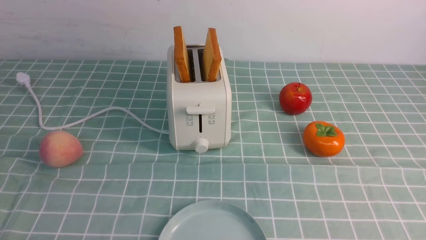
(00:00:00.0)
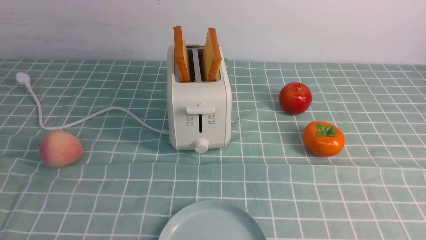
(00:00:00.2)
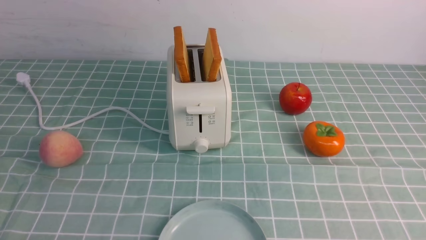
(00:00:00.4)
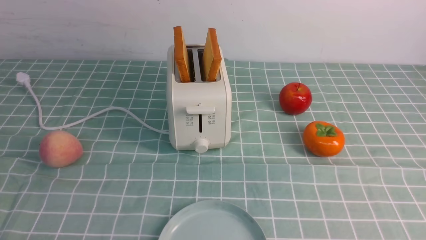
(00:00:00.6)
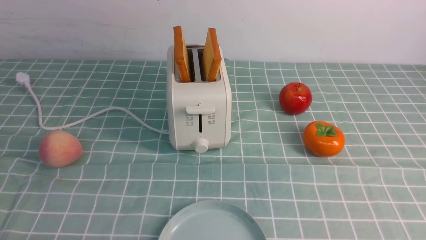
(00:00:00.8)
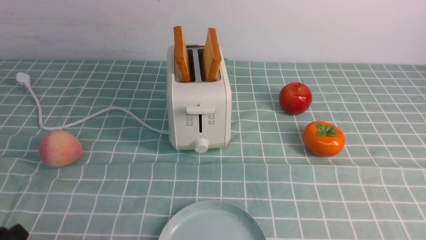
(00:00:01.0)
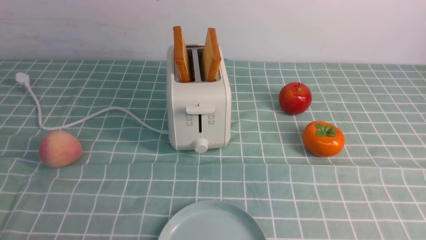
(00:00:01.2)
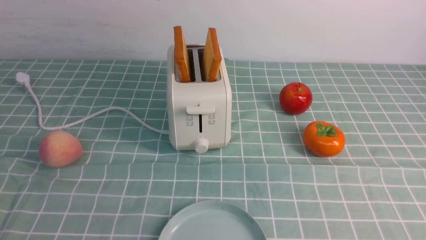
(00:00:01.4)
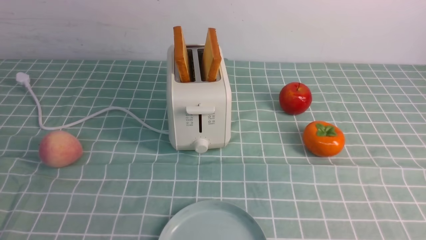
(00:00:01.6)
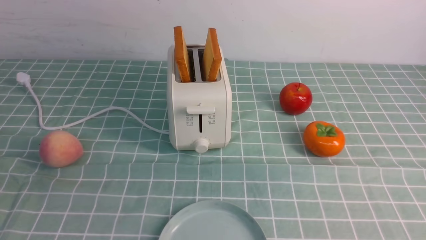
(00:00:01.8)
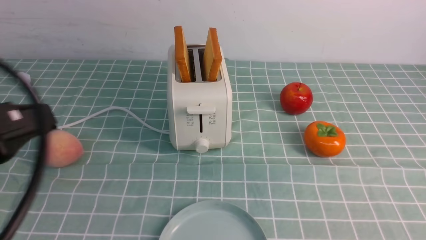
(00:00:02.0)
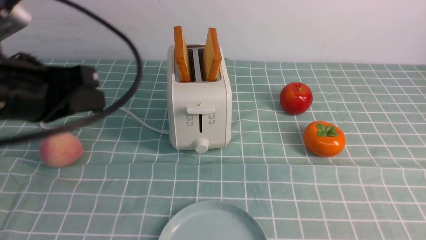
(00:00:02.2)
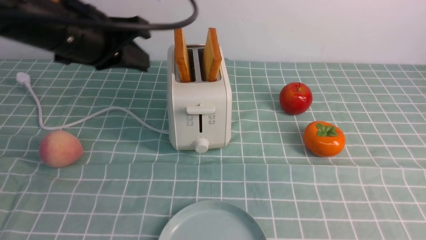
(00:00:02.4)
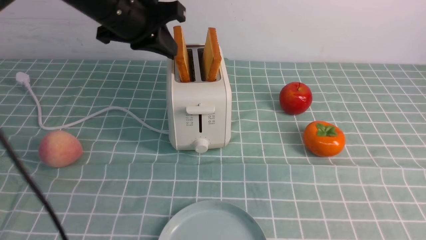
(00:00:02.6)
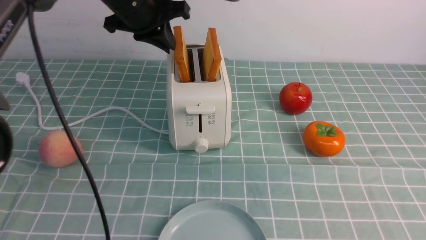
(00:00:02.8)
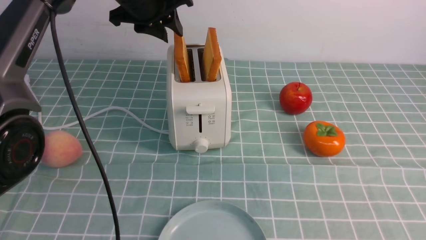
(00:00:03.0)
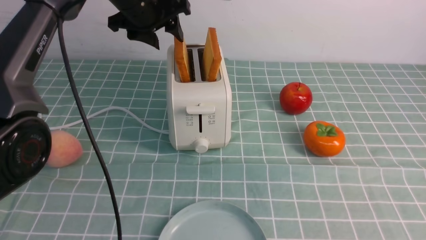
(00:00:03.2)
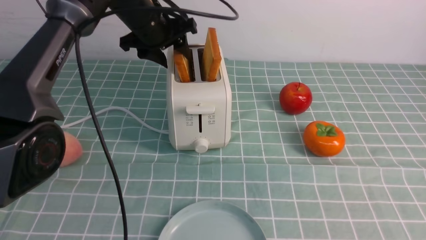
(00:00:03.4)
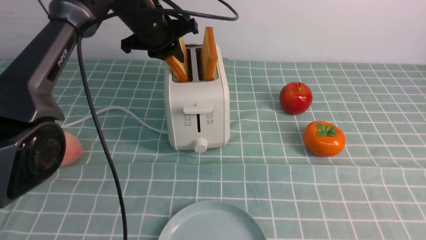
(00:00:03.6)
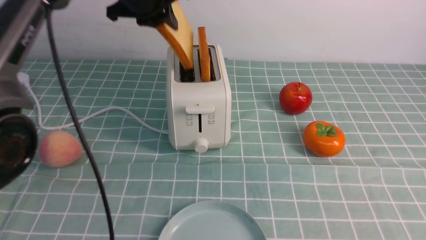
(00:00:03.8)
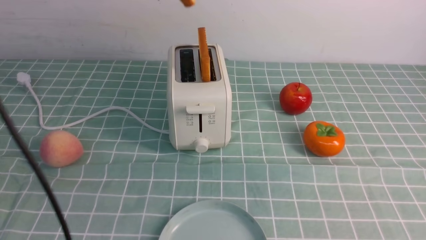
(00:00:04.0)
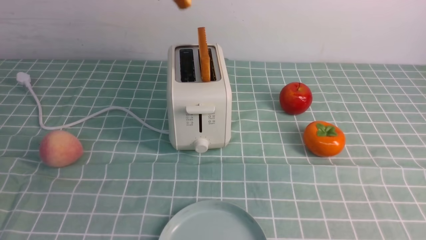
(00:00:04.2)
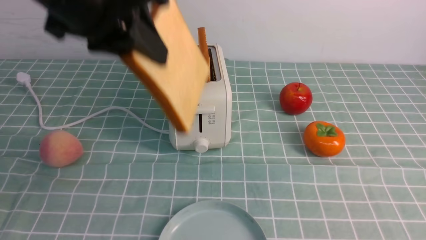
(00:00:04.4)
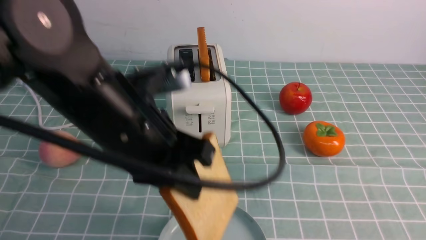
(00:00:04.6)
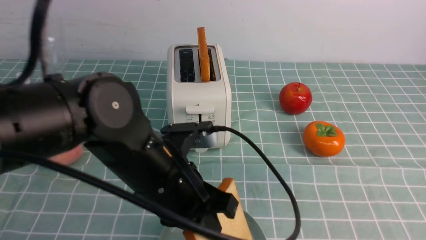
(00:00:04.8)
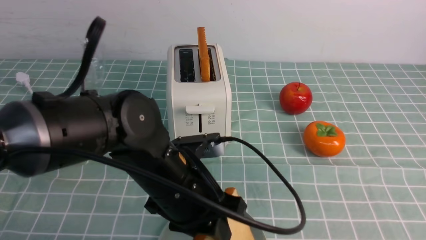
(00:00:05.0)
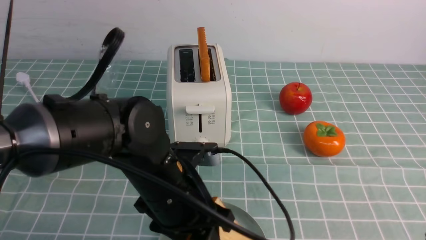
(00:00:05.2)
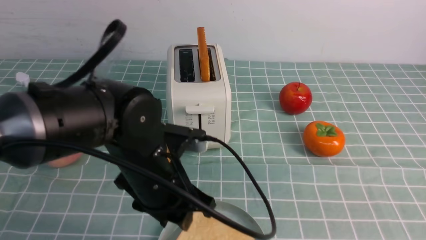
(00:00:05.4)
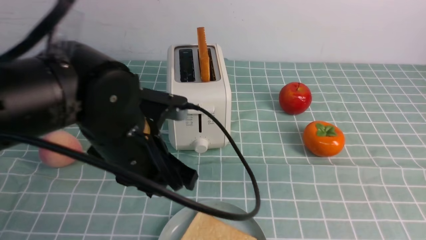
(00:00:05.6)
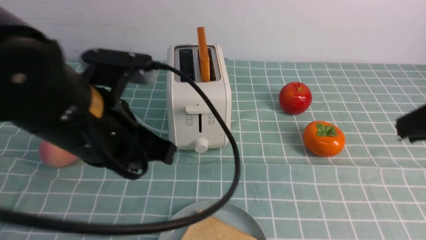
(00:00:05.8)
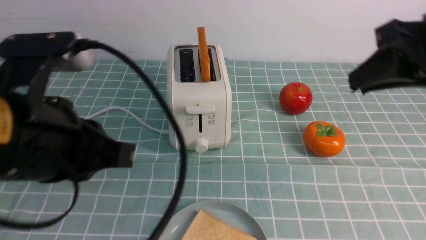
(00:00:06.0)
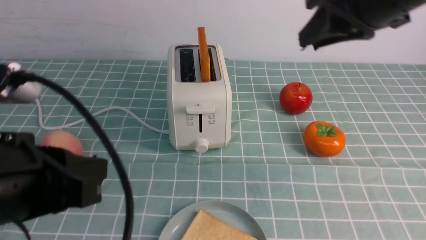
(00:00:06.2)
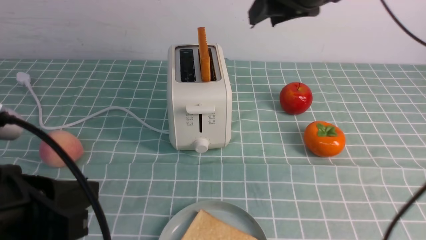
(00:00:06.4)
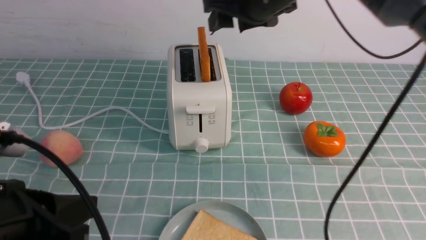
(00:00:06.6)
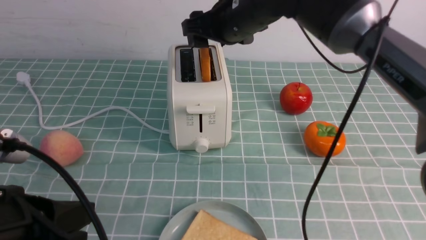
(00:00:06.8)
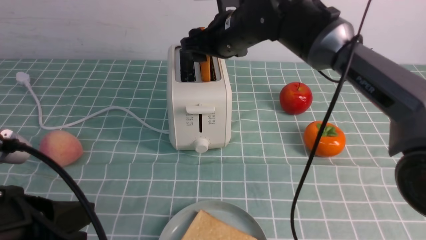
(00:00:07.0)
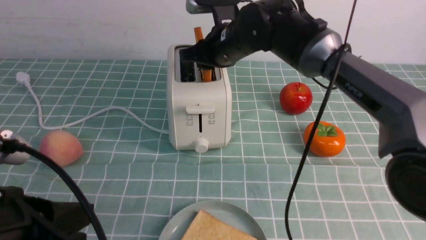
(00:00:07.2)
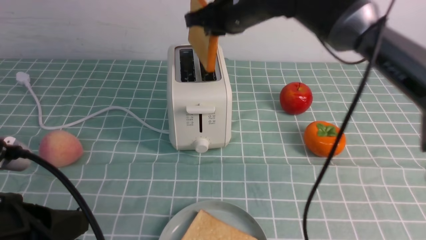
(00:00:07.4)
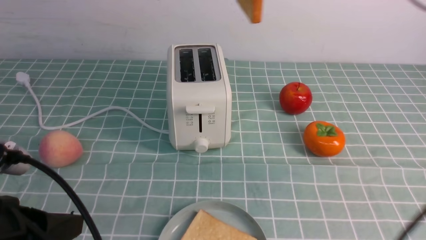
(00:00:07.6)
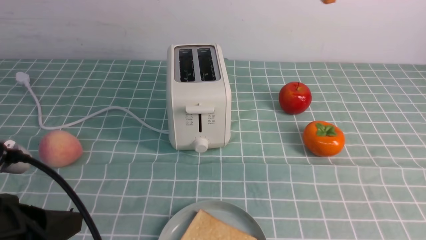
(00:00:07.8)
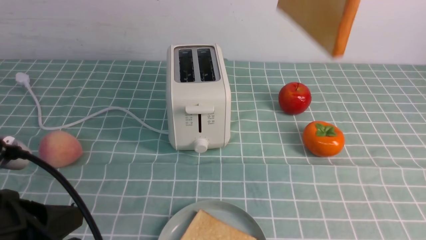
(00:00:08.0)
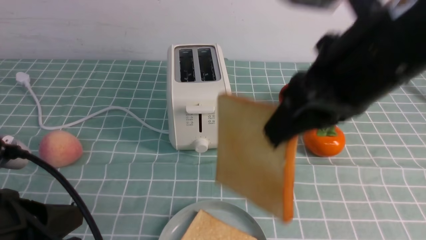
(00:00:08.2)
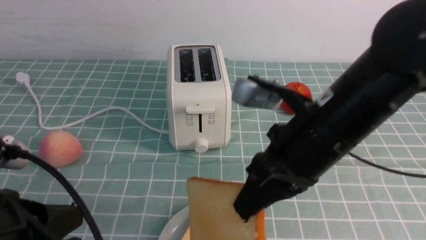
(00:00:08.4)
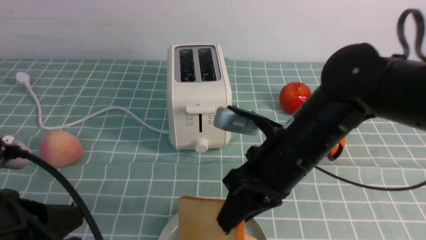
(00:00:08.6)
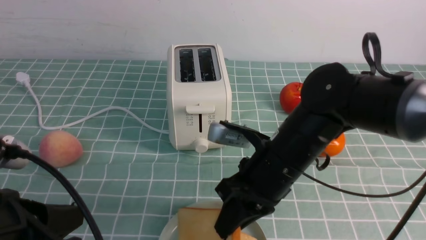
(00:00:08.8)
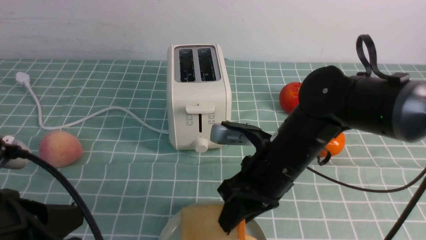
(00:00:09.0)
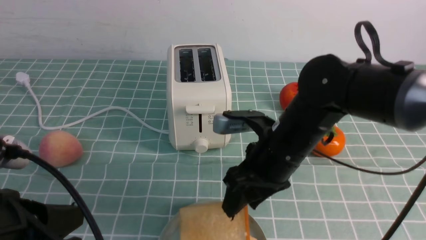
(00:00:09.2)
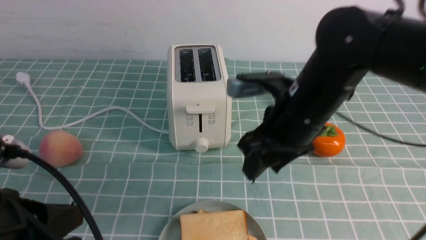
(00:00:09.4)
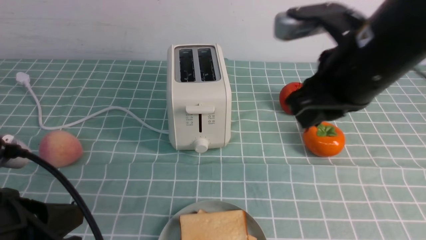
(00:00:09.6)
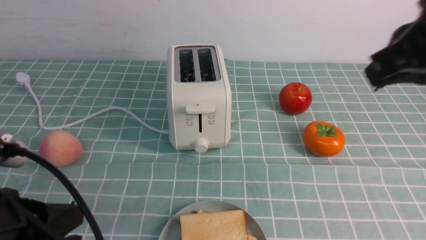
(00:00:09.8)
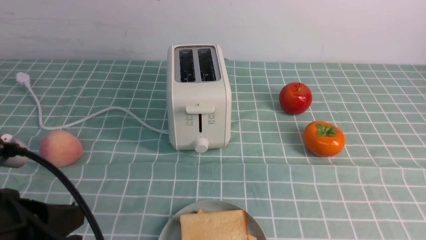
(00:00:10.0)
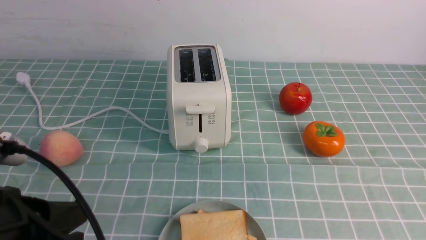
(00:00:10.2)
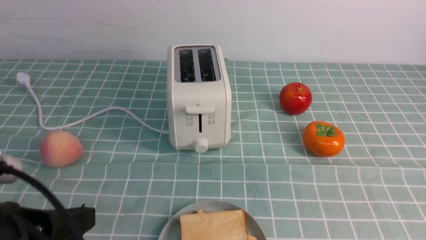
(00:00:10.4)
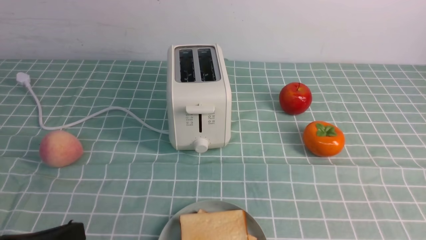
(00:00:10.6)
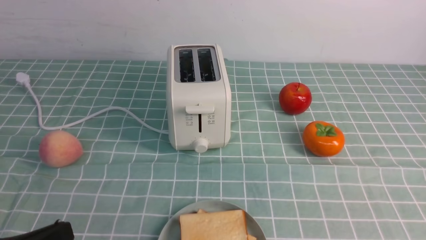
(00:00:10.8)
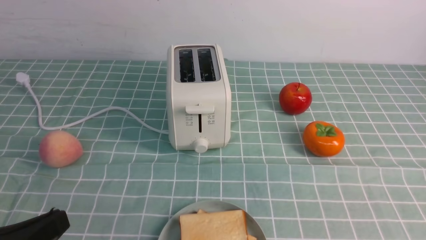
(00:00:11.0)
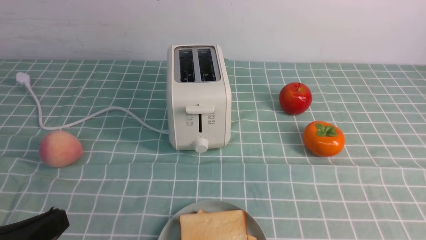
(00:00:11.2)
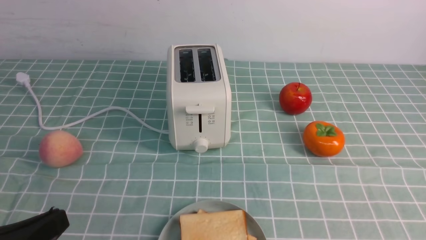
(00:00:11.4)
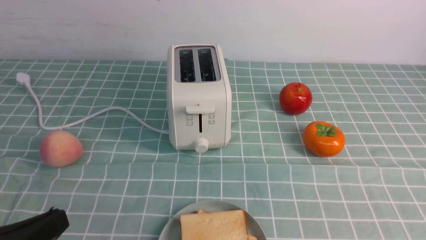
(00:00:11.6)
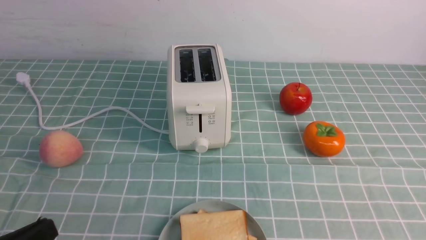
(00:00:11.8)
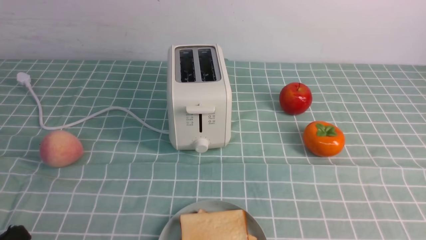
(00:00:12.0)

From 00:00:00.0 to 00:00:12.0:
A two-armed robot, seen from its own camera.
Task of the whole recording: take toasted bread from bread machine on blue coffee table place on plate.
Step, from 00:00:00.0 to 00:00:04.2: use the left arm to take out a slice of bread.
Step, from 00:00:04.4 to 00:00:06.2: use the left arm to put a slice of bread into the empty plate.
Step, from 00:00:06.4 to 00:00:07.8: use the right arm to take out a slice of bread.
Step, from 00:00:08.0 to 00:00:09.6: use the right arm to put a slice of bread into the plate.
From 00:00:01.6 to 00:00:03.0: The left gripper moves forward, roughly 40 cm, and opens its fingers, while the right gripper shifts approximately 5 cm upward, and closes.
From 00:00:03.0 to 00:00:04.4: The left gripper shifts about 20 cm backward, and closes its fingers.
From 00:00:04.4 to 00:00:06.0: The left gripper travels backward and downward by roughly 15 cm, and opens, then closes once more. Meanwhile the right gripper moves forward and upward, approximately 25 cm.
From 00:00:06.0 to 00:00:07.6: The left gripper heads downward and backward, covering about 10 cm; the right gripper travels to the left, forward and upward by approximately 15 cm, and opens, then closes once more.
From 00:00:07.6 to 00:00:09.0: The right gripper moves downward, approximately 25 cm.
From 00:00:09.0 to 00:00:10.4: The right gripper shifts approximately 30 cm backward, to the right and upward, and closes.
From 00:00:10.4 to 00:00:12.0: The left gripper heads downward, covering roughly 5 cm.

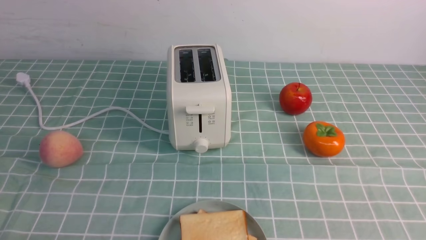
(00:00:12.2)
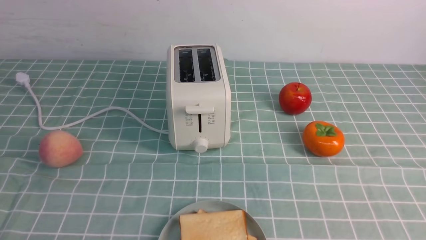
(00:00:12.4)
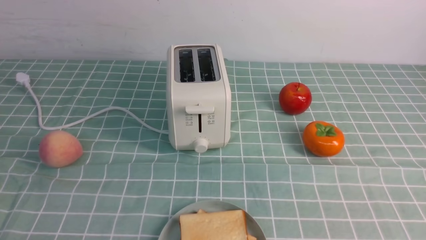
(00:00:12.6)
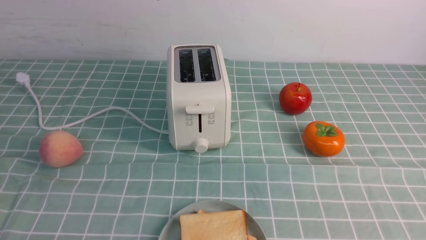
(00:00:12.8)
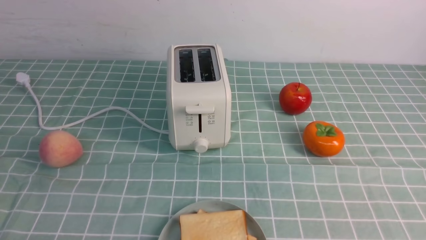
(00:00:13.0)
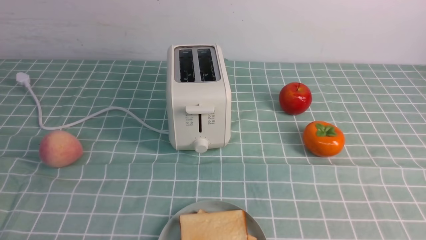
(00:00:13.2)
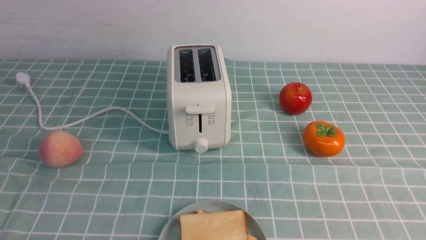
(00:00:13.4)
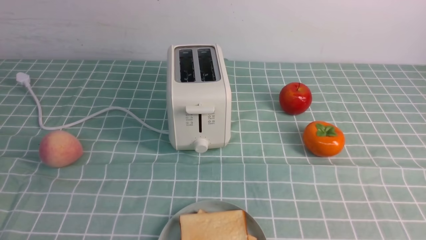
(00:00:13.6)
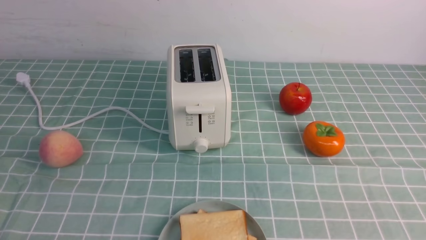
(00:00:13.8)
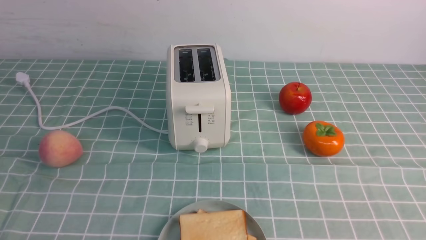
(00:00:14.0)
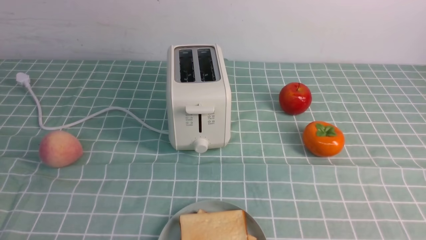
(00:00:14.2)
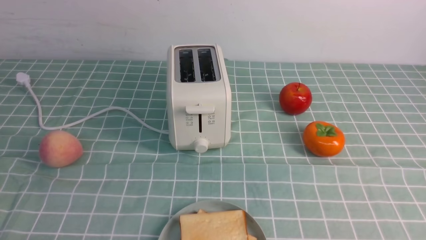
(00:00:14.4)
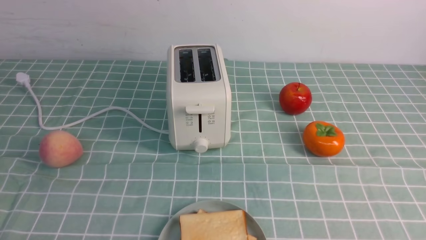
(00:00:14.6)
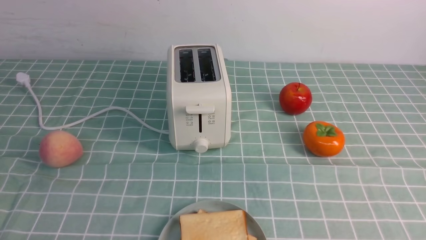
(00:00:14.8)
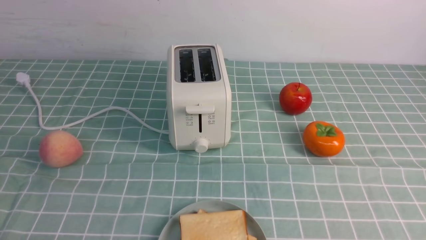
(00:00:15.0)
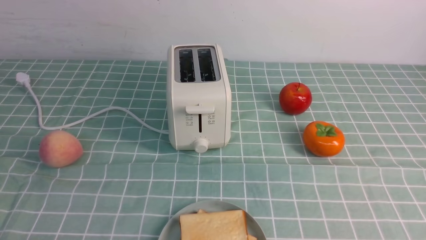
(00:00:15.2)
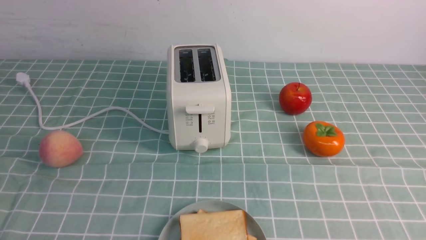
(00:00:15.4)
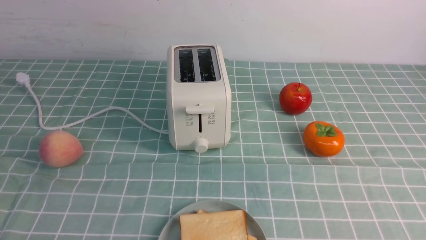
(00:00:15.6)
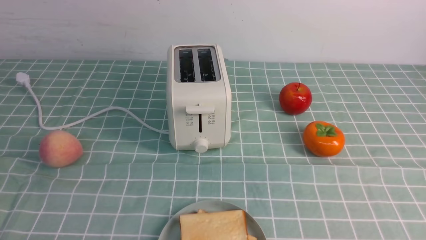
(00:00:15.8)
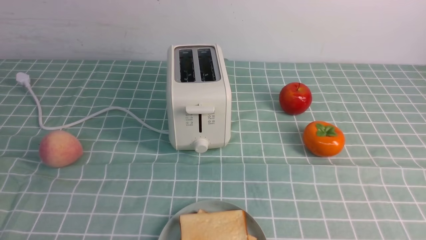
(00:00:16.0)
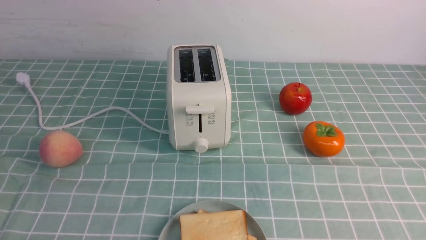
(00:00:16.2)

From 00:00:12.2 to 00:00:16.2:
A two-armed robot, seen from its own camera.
Task of the whole recording: take toasted bread from bread machine on blue coffee table place on plate.
From 00:00:14.8 to 00:00:16.2: Neither gripper changes place.
